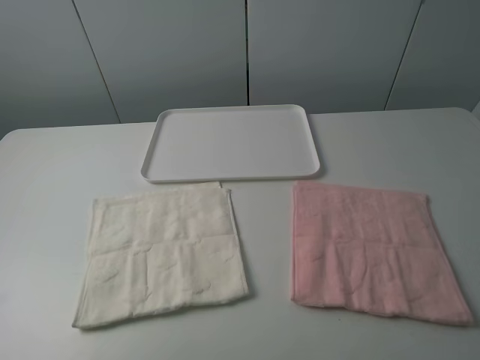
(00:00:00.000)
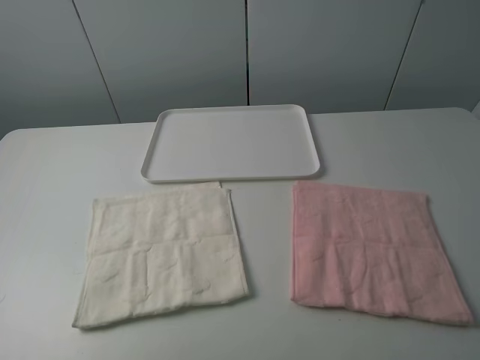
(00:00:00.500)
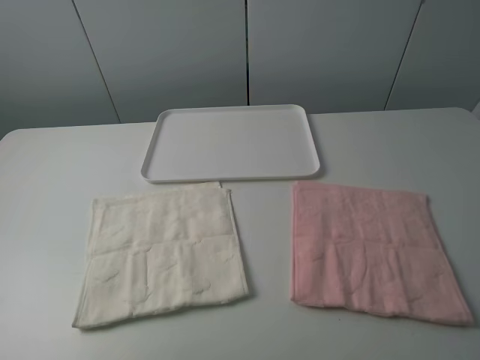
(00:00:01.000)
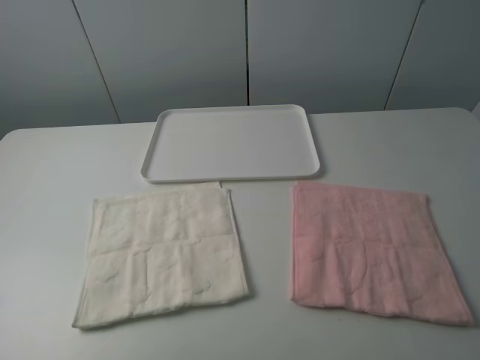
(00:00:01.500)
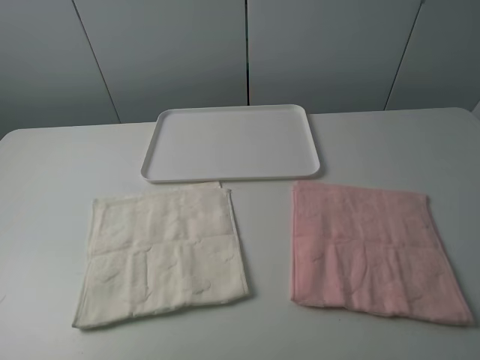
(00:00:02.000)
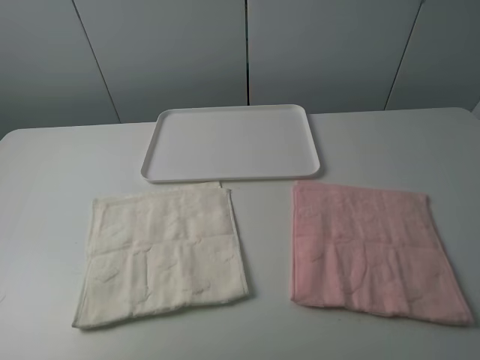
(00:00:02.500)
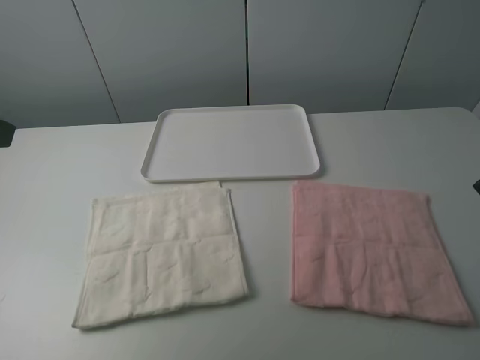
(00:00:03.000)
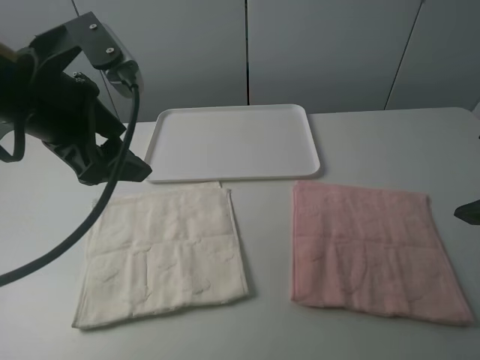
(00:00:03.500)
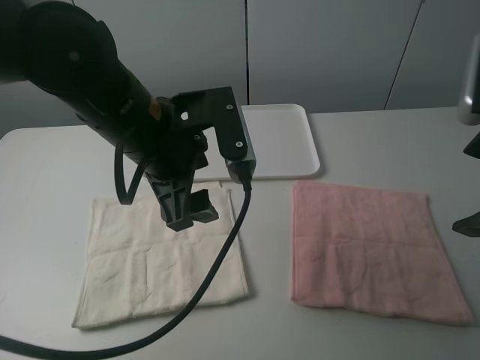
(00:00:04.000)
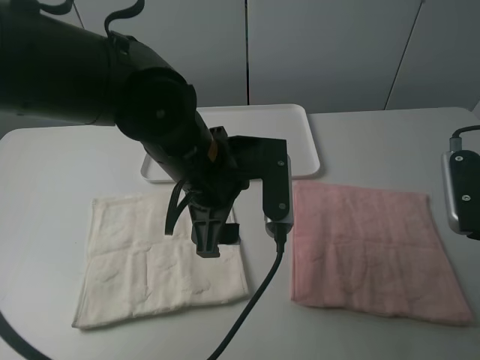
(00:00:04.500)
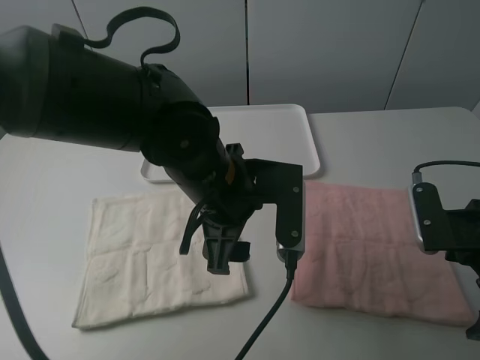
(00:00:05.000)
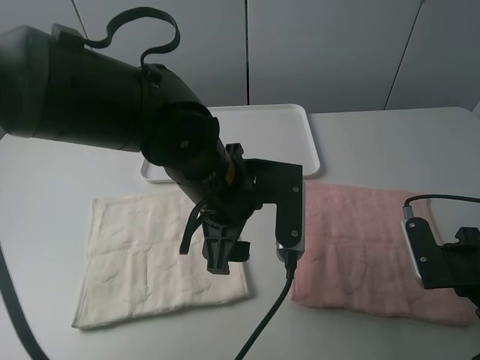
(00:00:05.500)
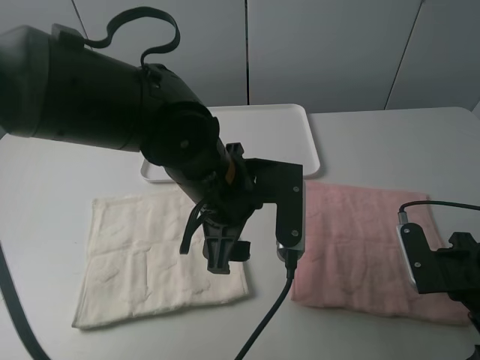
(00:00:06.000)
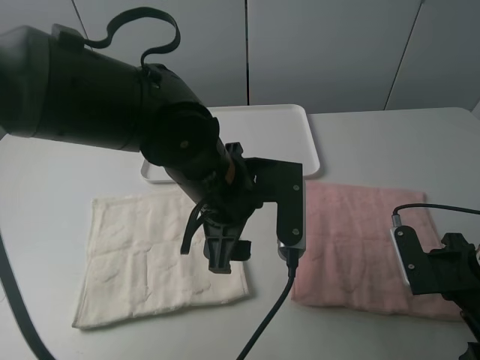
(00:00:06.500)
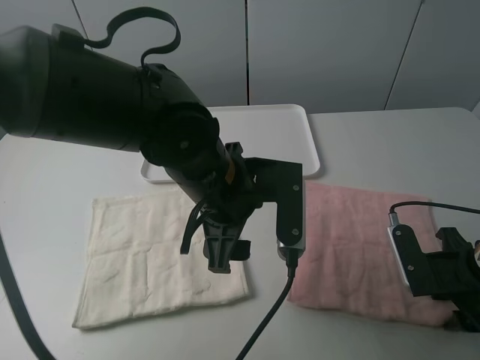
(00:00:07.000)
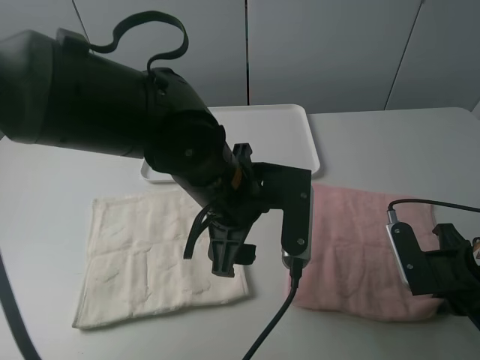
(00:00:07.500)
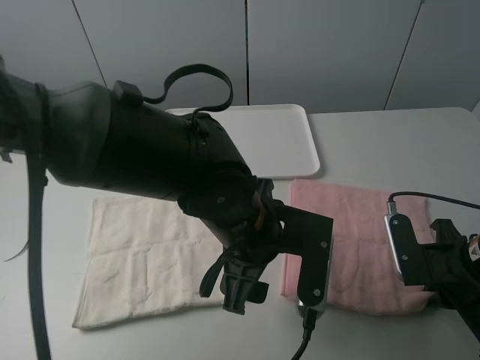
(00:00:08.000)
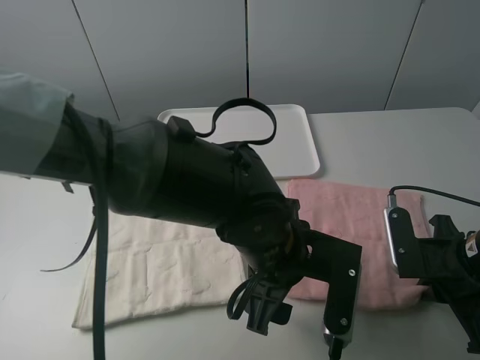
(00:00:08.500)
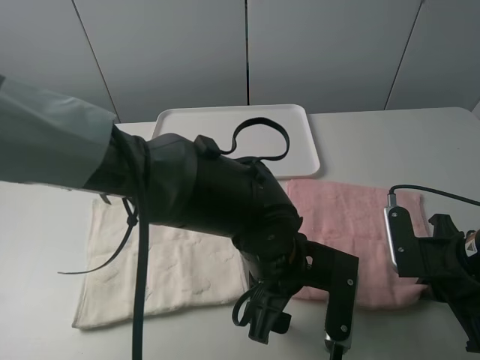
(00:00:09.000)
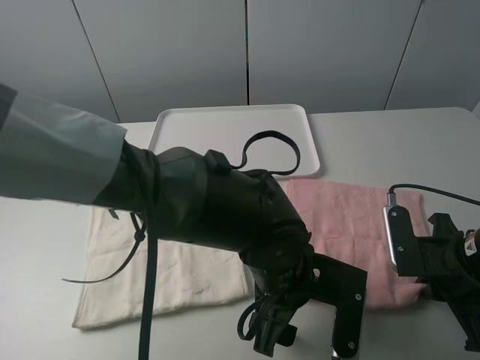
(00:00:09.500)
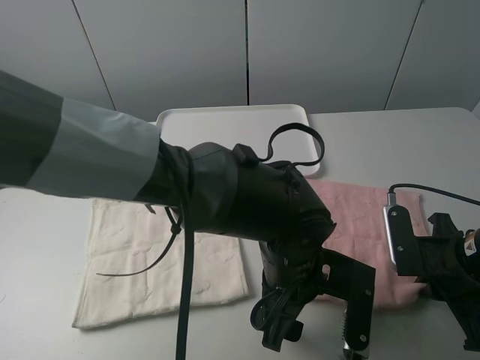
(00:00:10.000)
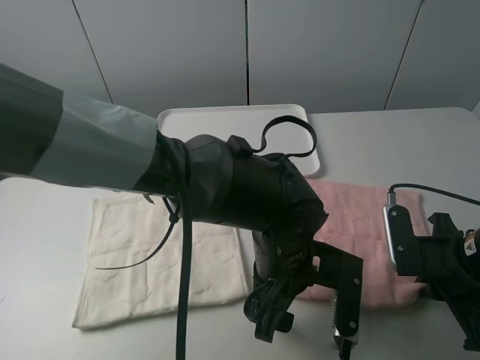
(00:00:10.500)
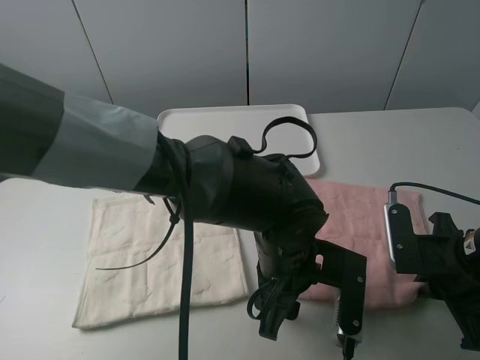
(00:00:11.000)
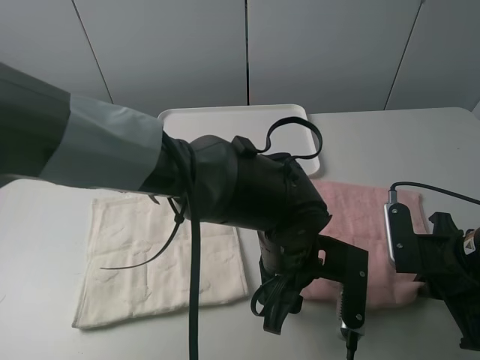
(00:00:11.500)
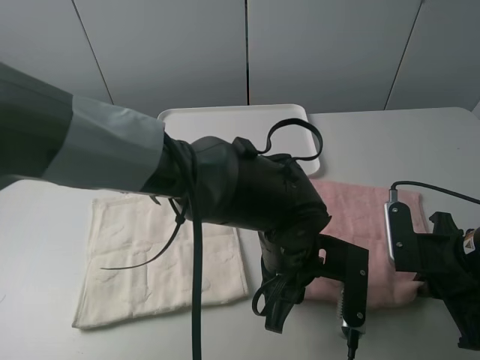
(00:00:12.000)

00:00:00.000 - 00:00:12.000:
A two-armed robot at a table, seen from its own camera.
Task of the whole recording: fold one of the towels by two grippers and place it on the tray,then fold another towel by two grippers and place it on the folded towel.
00:00:00.000 - 00:00:02.000: Both grippers stay about where they are.
00:00:02.000 - 00:00:04.000: The left gripper shifts some 35 cm forward and to the right, while the right gripper moves forward, some 15 cm.
00:00:04.000 - 00:00:06.000: The left gripper shifts approximately 10 cm to the right and downward. The right gripper goes some 15 cm downward.
00:00:06.000 - 00:00:08.000: The left gripper ends up approximately 5 cm from where it was. The right gripper closes up.
00:00:08.000 - 00:00:10.000: The left gripper goes some 5 cm to the right.
00:00:10.000 - 00:00:12.000: The left gripper closes its fingers.

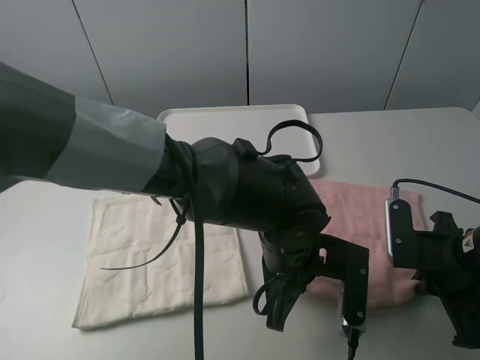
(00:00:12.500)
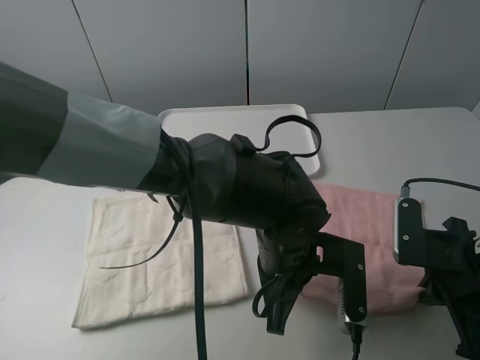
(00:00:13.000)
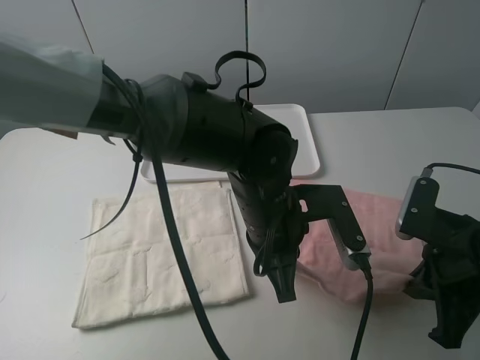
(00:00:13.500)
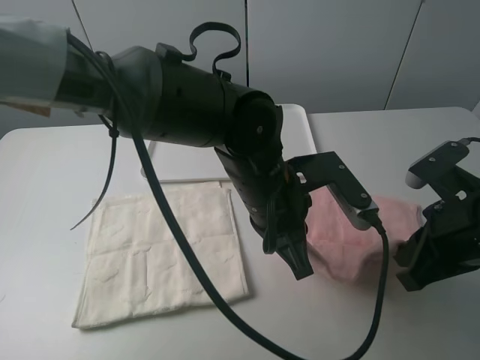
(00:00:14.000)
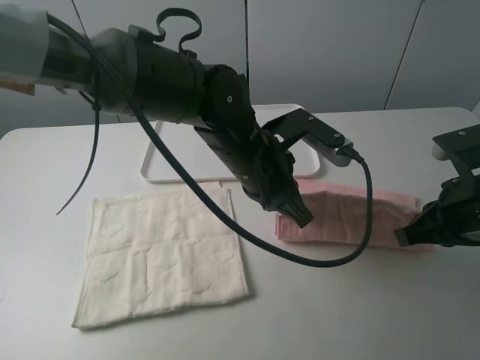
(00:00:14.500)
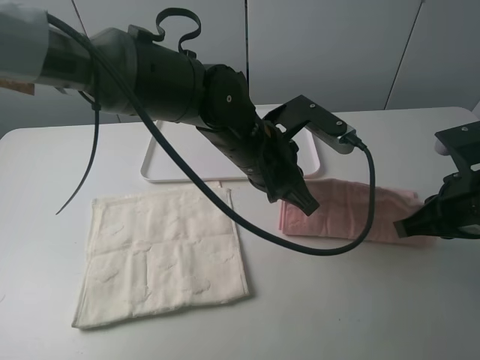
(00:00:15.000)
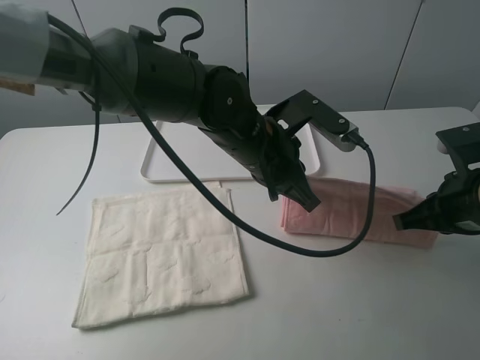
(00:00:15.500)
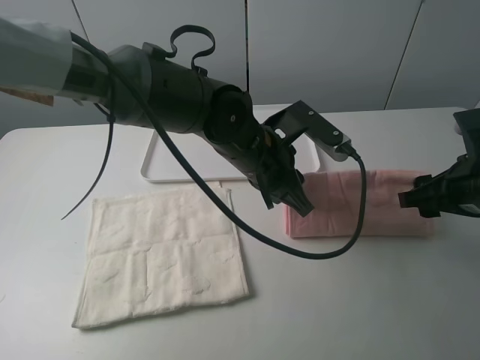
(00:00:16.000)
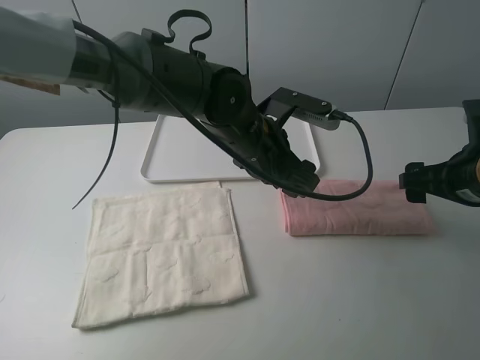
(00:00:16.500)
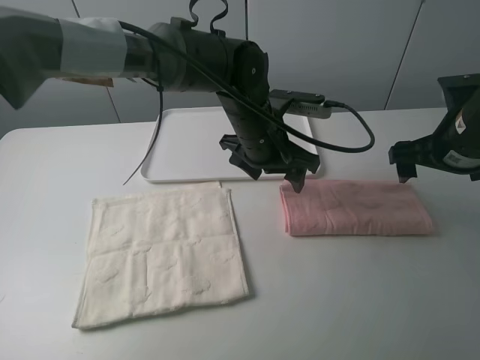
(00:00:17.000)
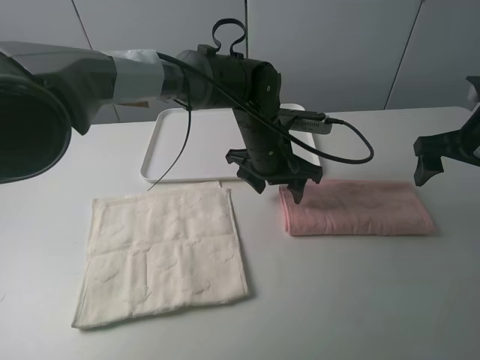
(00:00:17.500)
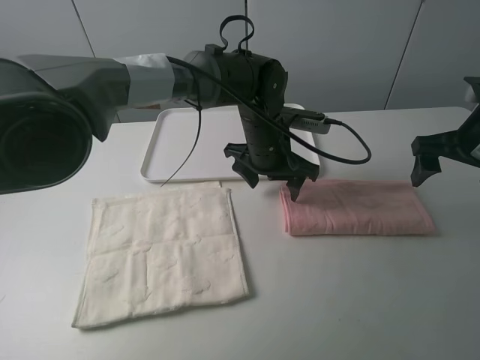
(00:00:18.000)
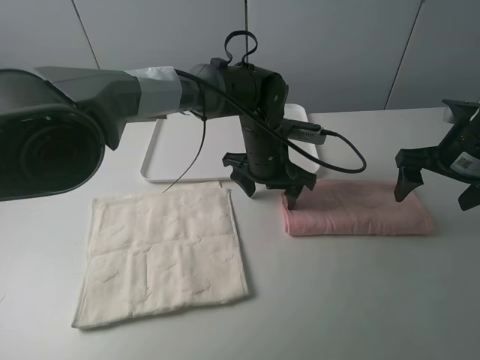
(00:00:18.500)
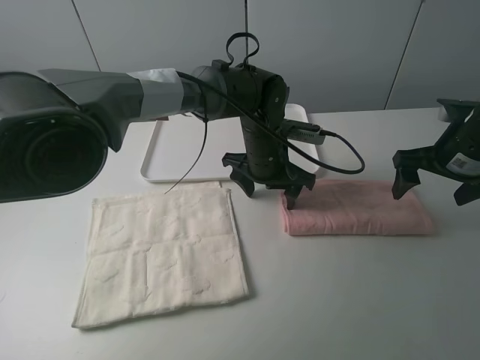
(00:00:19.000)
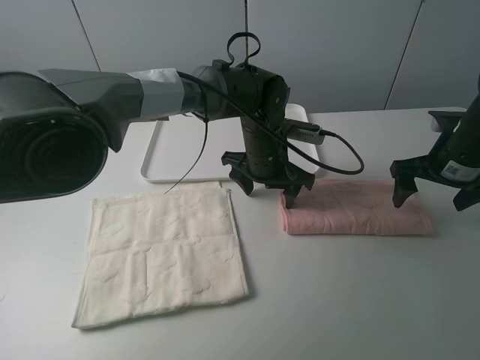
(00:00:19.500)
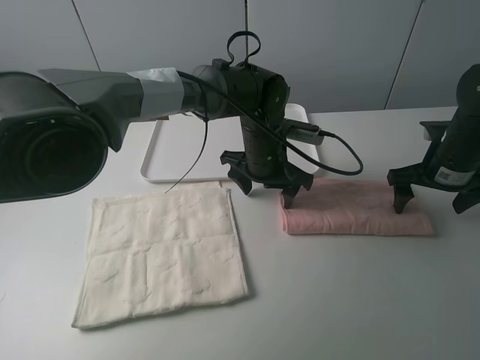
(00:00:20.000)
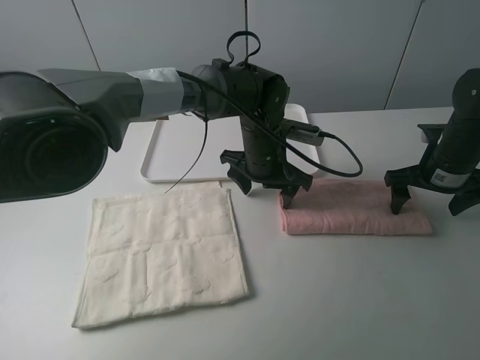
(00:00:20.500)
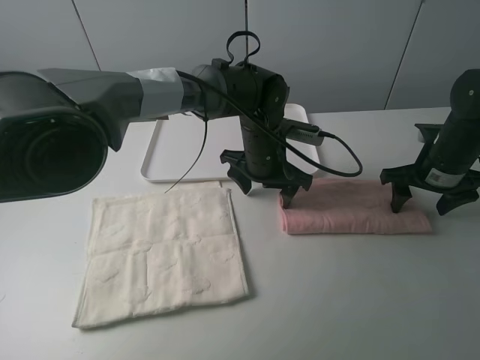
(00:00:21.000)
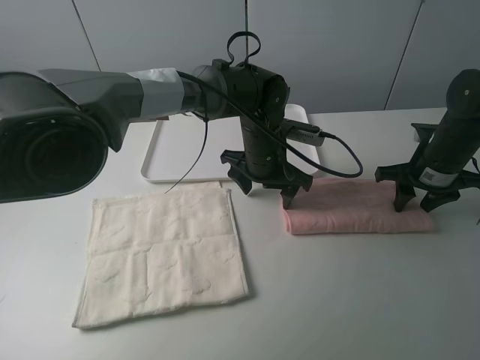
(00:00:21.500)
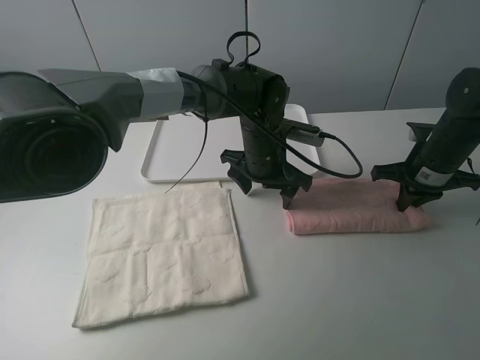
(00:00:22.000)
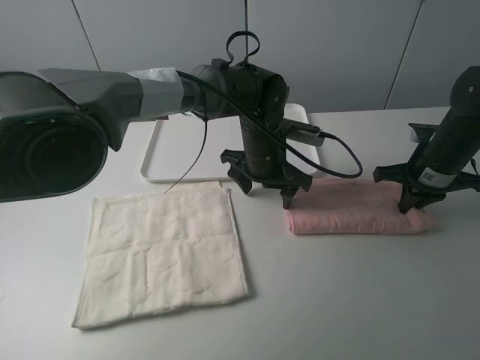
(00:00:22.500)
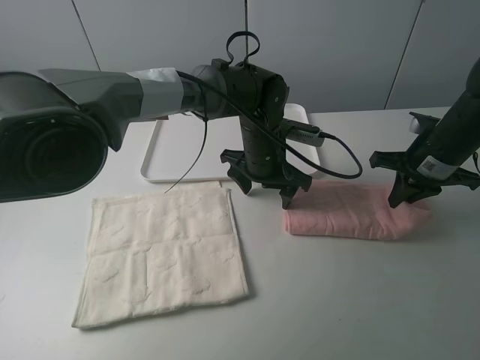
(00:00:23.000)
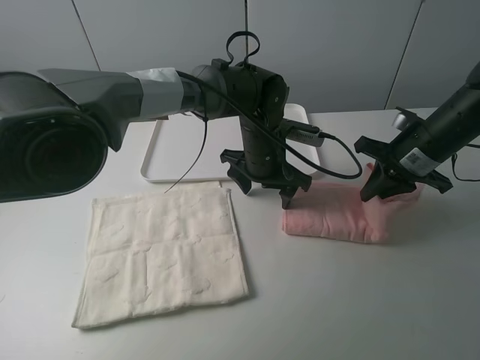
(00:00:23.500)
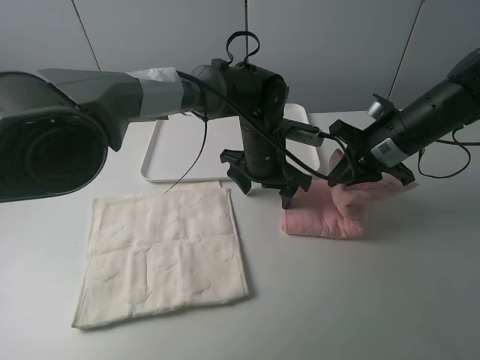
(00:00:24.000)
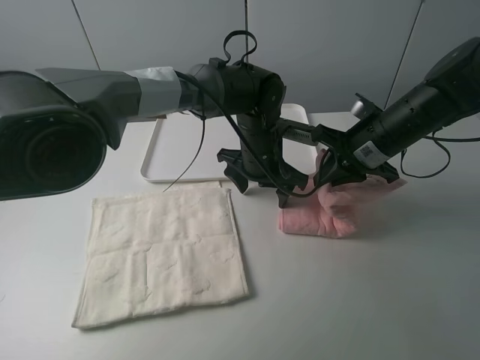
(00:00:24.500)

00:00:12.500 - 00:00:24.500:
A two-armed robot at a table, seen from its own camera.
Task of the whole recording: fold one of the towels by two grippers and place it on the tray,then fold another towel by two grippers and place it on the folded towel.
Step, 00:00:13.500 - 00:00:16.000: Fold the pink towel upwards with the left gripper.
Step, 00:00:16.500 - 00:00:18.500: Press the pink towel with the left gripper.
Step, 00:00:19.000 - 00:00:22.000: Grasp the pink towel with the right gripper.
00:00:12.500 - 00:00:14.500: The right gripper travels upward by approximately 5 cm, while the left gripper is displaced forward and upward by approximately 10 cm.
00:00:14.500 - 00:00:16.500: The left gripper opens up; the right gripper changes place by about 5 cm, and opens.
00:00:16.500 - 00:00:18.500: The right gripper shifts about 5 cm forward, while the left gripper is displaced downward and forward by some 10 cm.
00:00:18.500 - 00:00:20.500: The right gripper travels downward by some 5 cm.
00:00:20.500 - 00:00:22.500: The right gripper closes.
00:00:22.500 - 00:00:24.500: The right gripper goes roughly 10 cm to the left.

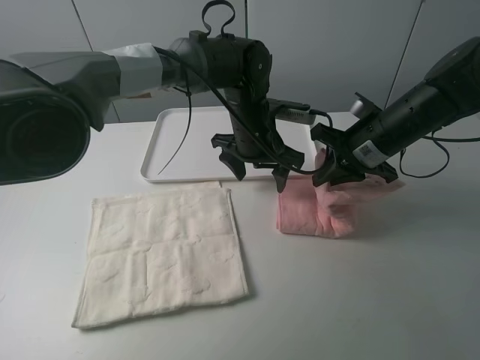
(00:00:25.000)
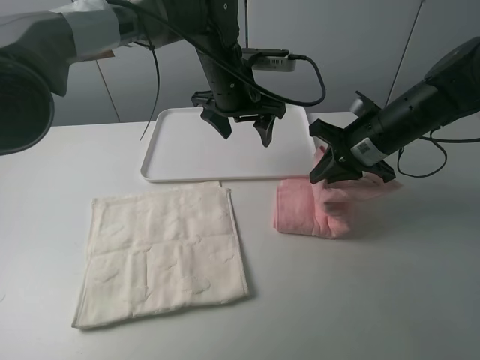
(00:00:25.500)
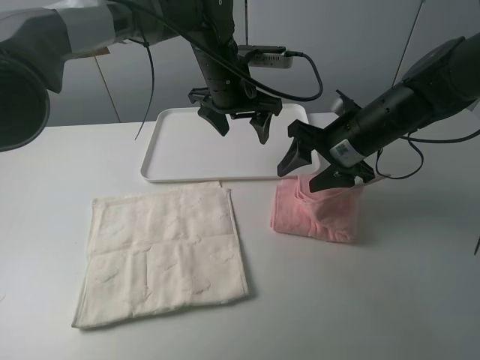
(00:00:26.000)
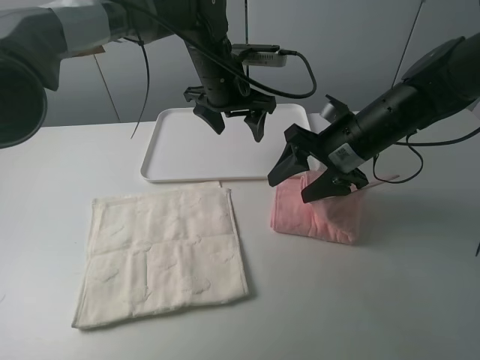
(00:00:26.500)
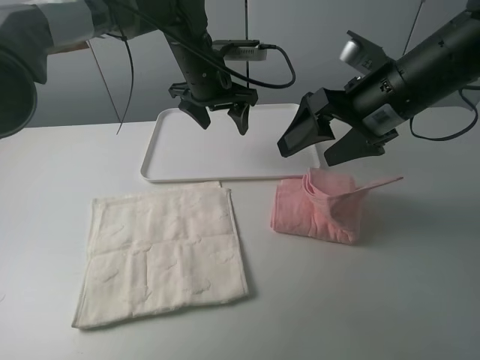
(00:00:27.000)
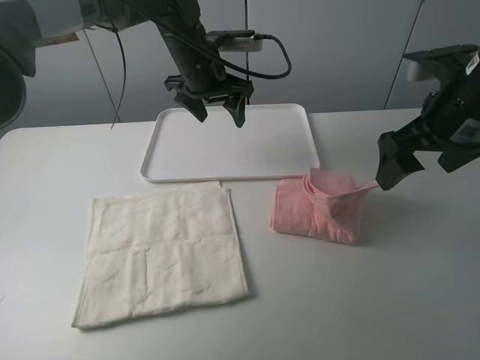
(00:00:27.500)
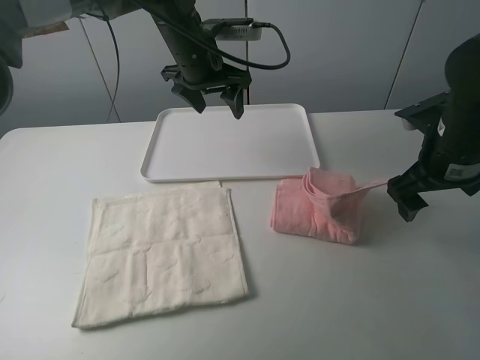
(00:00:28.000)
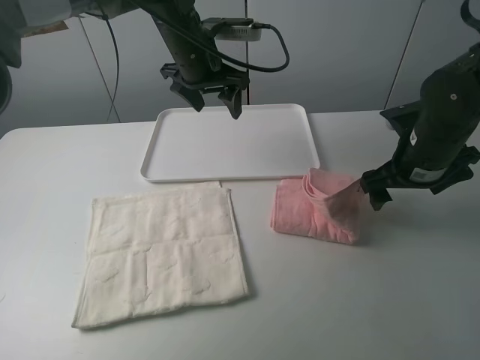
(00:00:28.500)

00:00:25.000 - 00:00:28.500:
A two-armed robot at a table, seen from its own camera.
Task of the whole recording: fold one of the towels by two grippers and place it on the tray,then fold another towel by two grippers and place it on the folded towel.
00:00:25.000 - 00:00:27.000: The left gripper moves to the left, upward and forward, roughly 10 cm; the right gripper moves upward, approximately 10 cm, and opens up.
00:00:27.000 - 00:00:28.500: The right gripper travels downward and to the right by about 10 cm.
